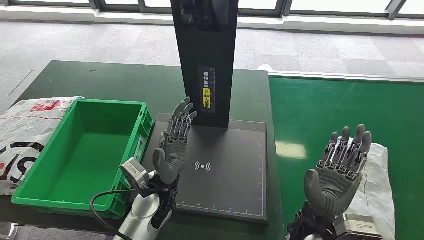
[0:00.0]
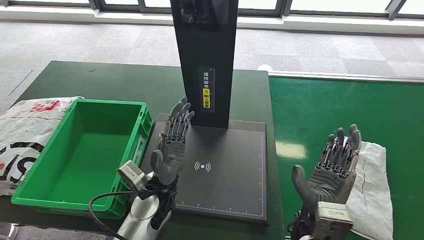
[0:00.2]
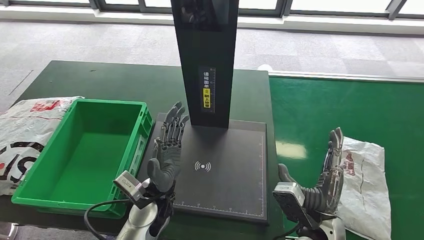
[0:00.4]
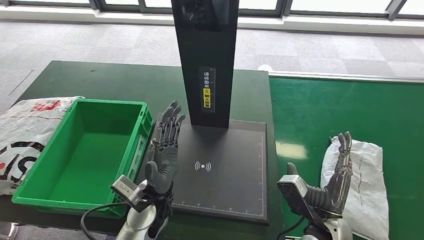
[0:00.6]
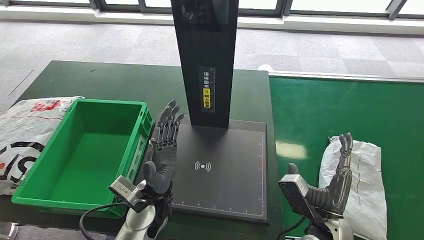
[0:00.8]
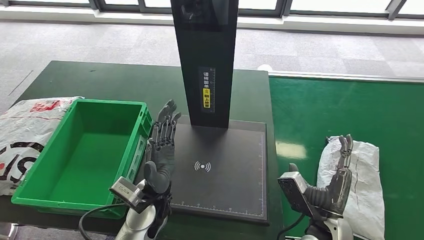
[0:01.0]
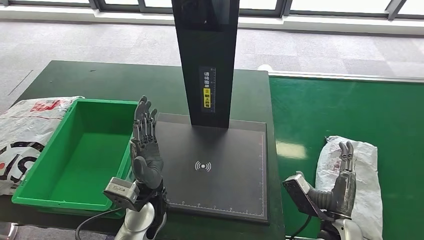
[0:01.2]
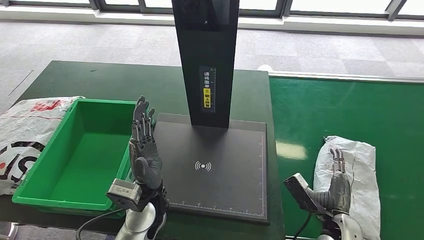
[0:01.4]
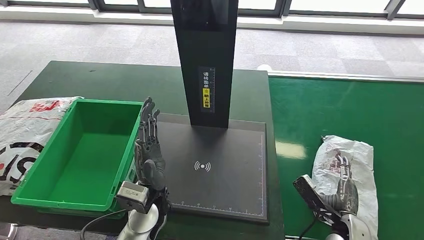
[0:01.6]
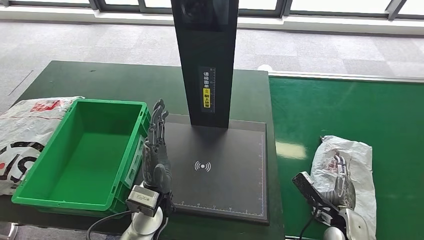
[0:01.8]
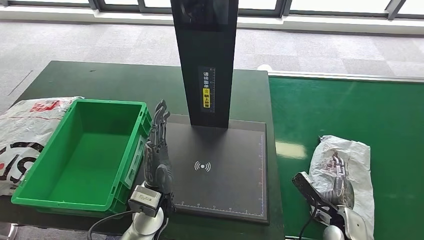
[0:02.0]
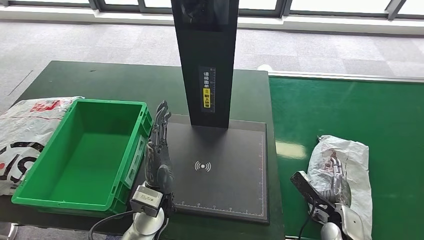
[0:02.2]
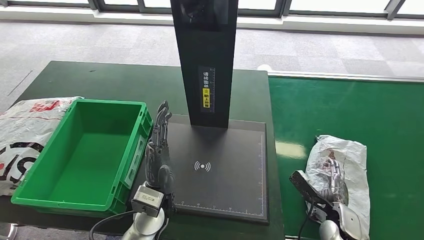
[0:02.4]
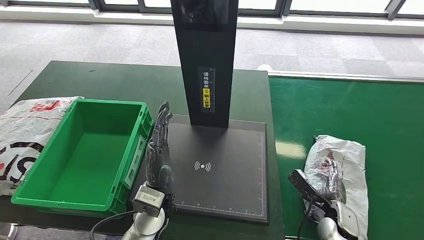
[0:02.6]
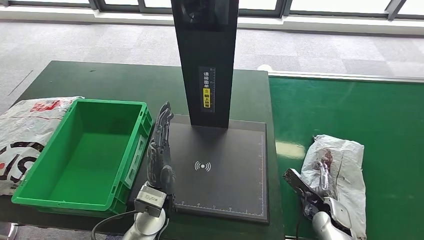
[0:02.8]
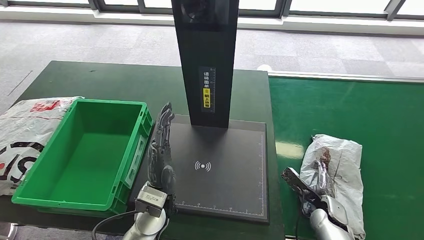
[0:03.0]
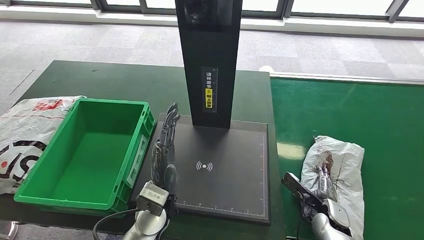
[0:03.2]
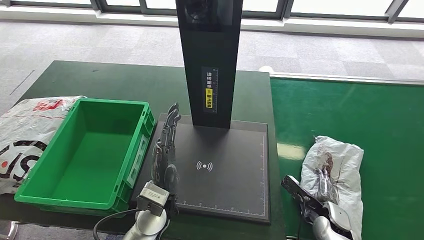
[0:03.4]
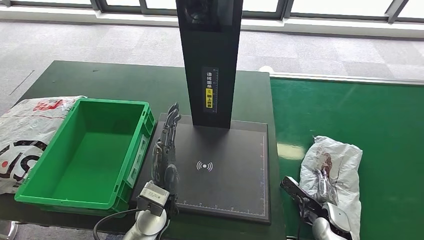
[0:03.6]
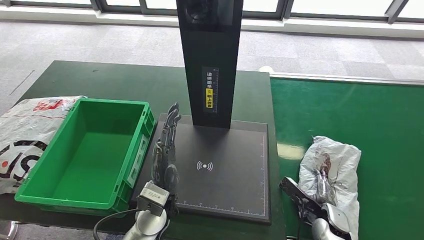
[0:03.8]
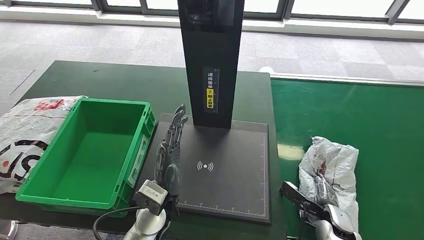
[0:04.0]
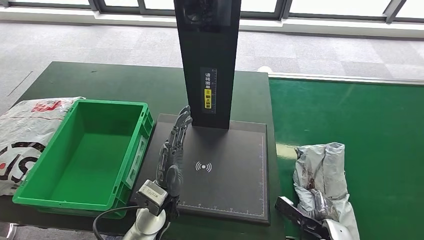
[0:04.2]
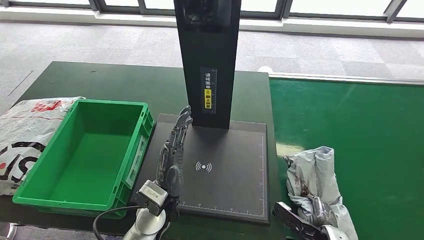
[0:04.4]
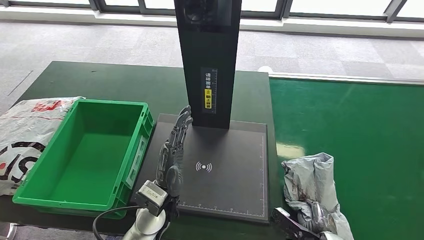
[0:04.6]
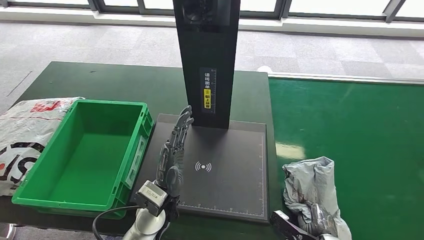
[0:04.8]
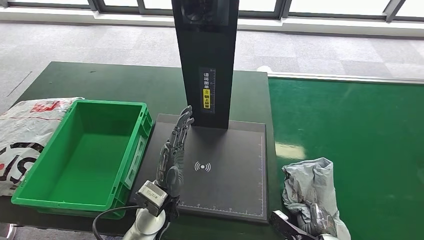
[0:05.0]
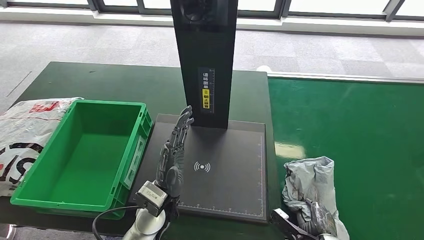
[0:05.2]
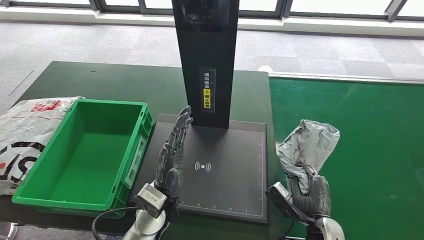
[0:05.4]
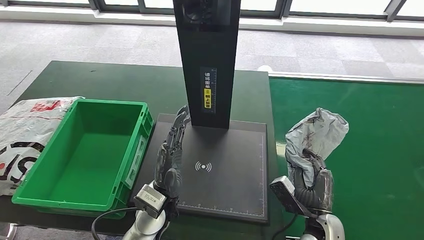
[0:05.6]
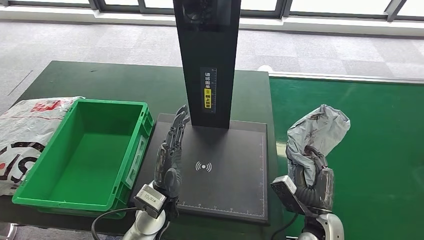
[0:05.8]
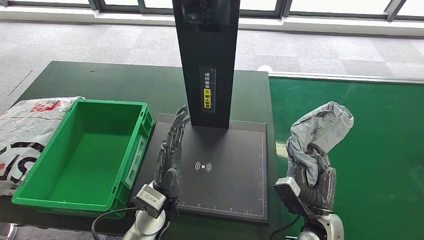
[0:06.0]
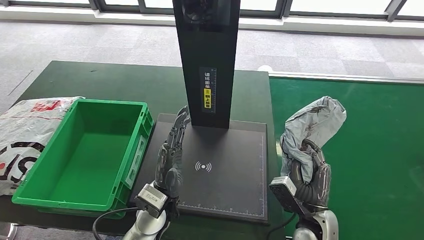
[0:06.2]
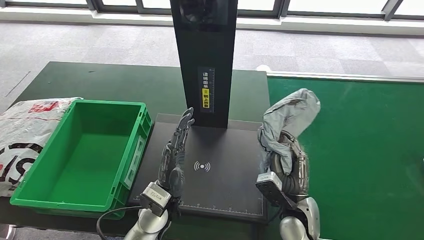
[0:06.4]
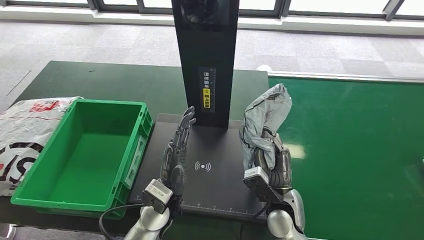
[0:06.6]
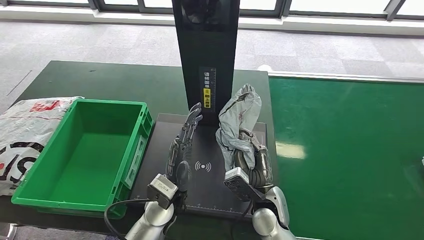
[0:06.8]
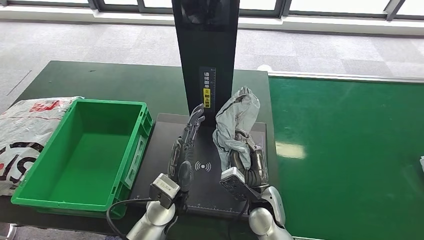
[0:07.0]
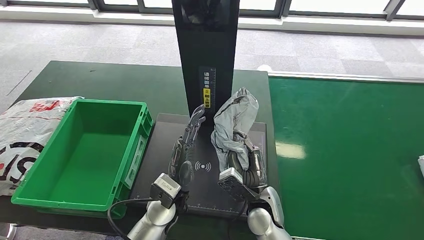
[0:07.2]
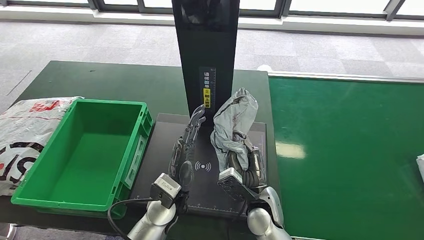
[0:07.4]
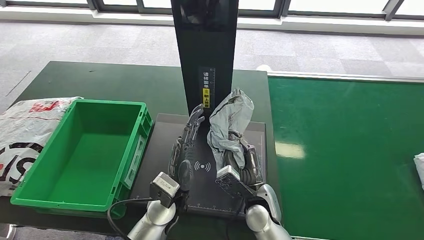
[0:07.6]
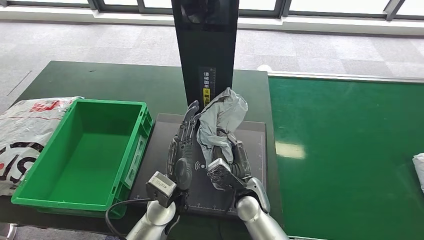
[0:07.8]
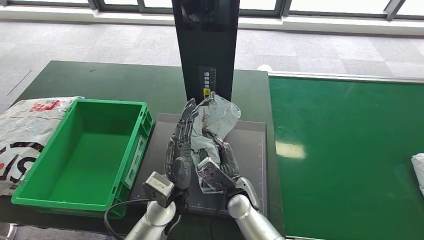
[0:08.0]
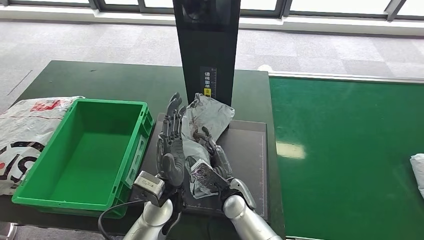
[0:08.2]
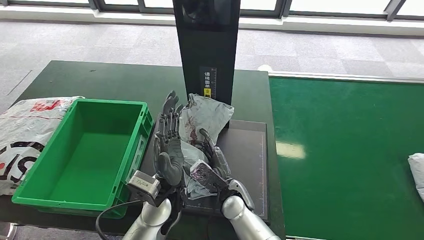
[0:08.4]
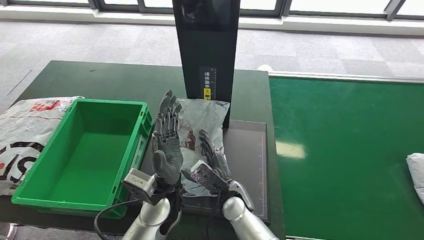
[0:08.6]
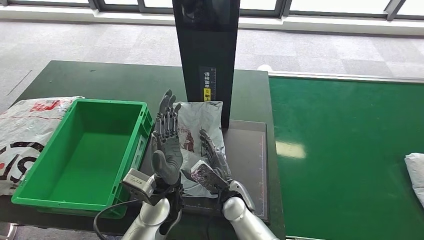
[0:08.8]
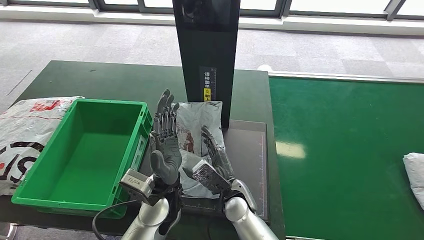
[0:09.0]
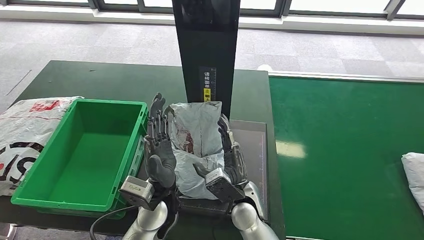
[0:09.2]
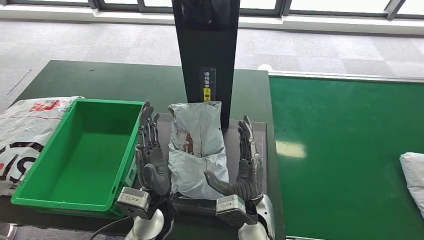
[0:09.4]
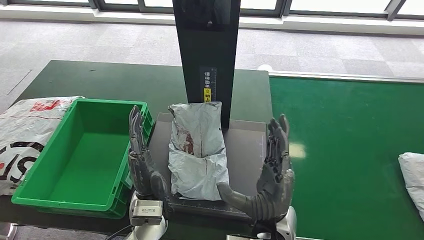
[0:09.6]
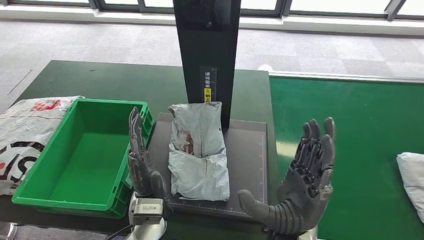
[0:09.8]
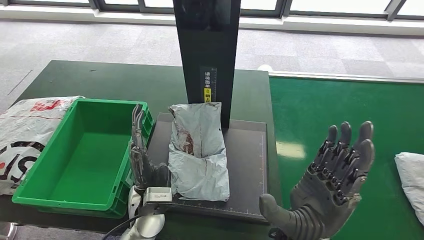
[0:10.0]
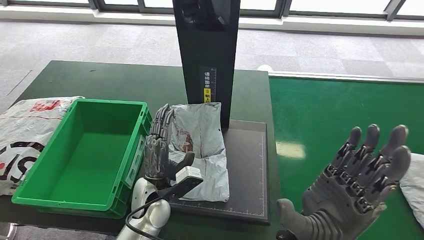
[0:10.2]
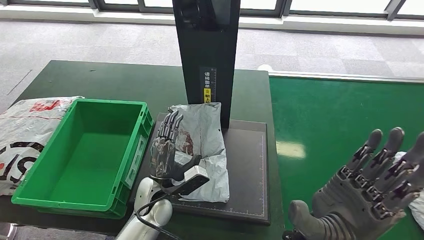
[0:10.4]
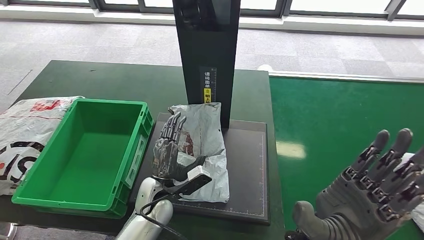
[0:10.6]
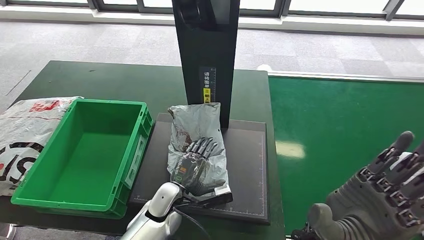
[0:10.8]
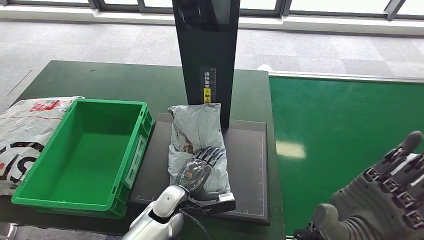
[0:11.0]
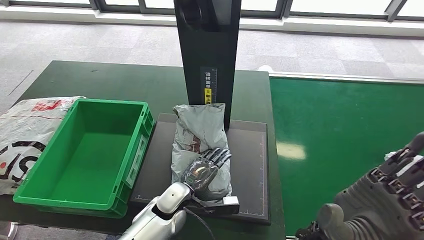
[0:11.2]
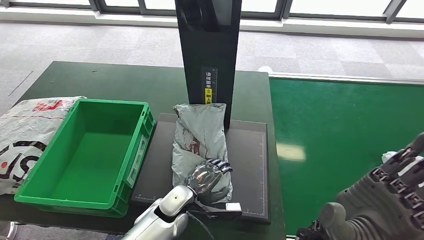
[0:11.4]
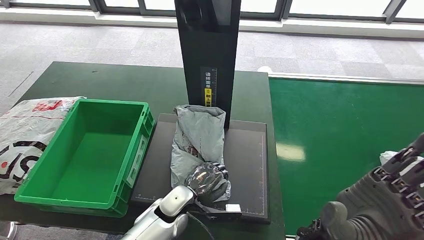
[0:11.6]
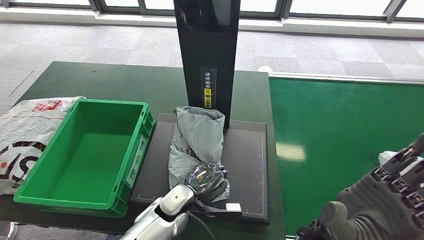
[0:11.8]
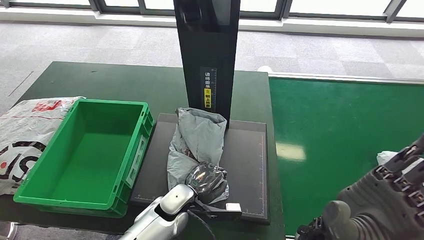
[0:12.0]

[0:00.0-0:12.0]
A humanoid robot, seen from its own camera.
Step, 0:00.0 to 0:05.8: Take the parcel off the conveyor belt.
Step, 0:06.2 to 0:10.2: Place the parcel onto the inbound machine.
0:01.6 to 0:03.0: The right hand heads downward and forward, covering some 10 cm.
0:03.0 to 0:04.4: The right hand heads backward, covering roughly 10 cm.
0:04.4 to 0:06.0: The right hand travels upward by about 5 cm.
0:06.0 to 0:07.6: The right hand goes roughly 15 cm to the left and forward.
0:07.6 to 0:09.0: The right hand goes roughly 5 cm to the left.
0:09.0 to 0:10.4: The left hand is displaced downward by roughly 10 cm; the right hand shifts approximately 25 cm upward, backward and to the right.

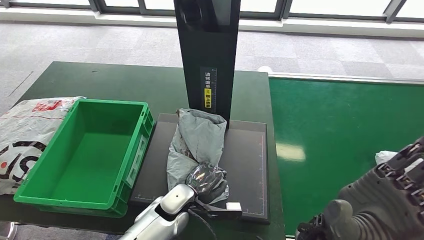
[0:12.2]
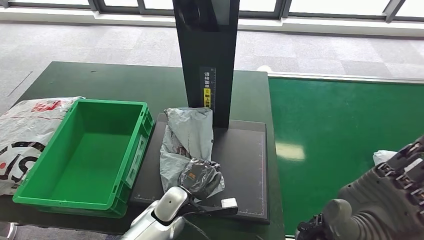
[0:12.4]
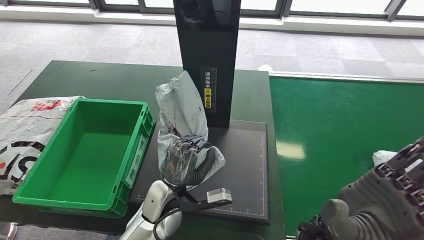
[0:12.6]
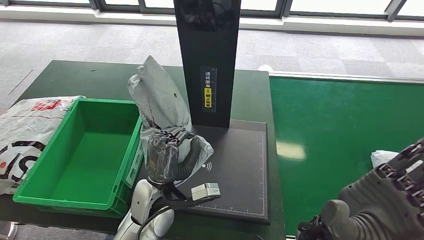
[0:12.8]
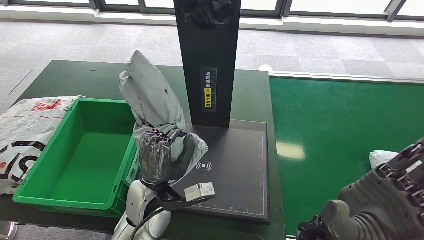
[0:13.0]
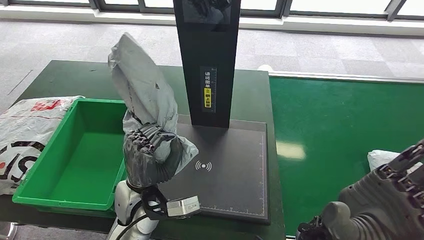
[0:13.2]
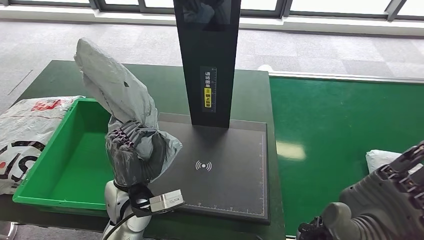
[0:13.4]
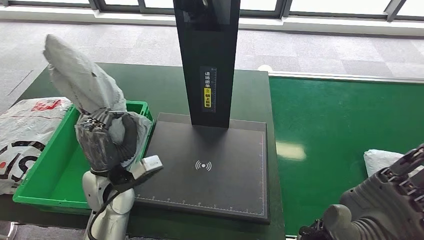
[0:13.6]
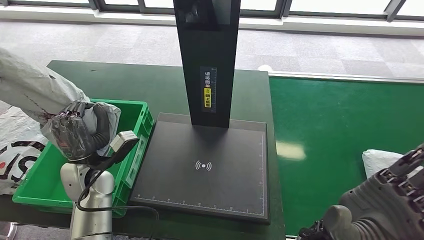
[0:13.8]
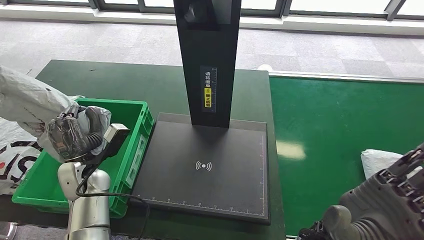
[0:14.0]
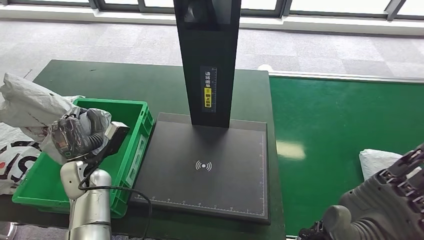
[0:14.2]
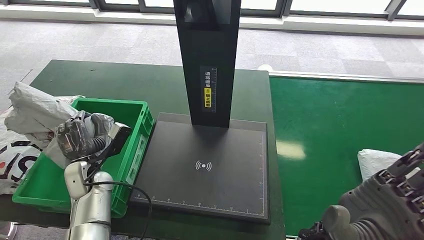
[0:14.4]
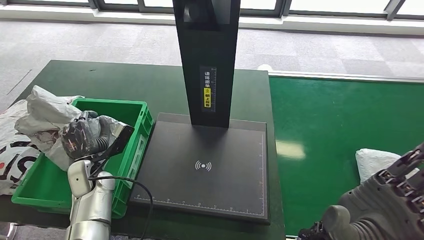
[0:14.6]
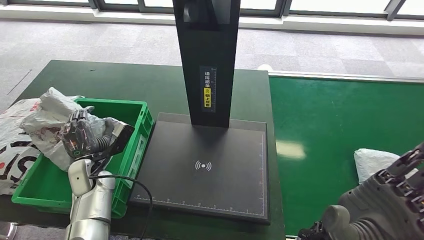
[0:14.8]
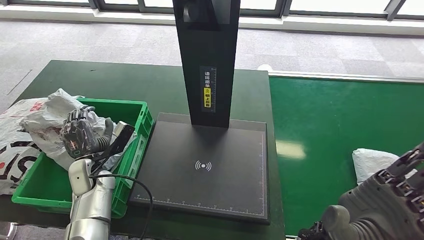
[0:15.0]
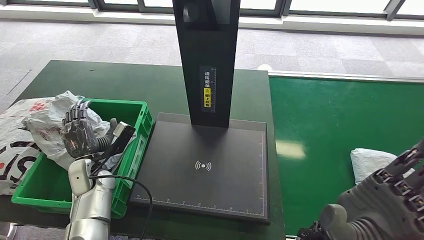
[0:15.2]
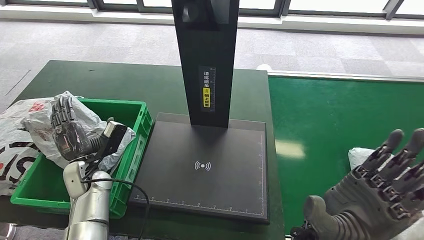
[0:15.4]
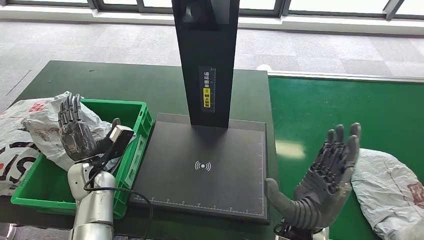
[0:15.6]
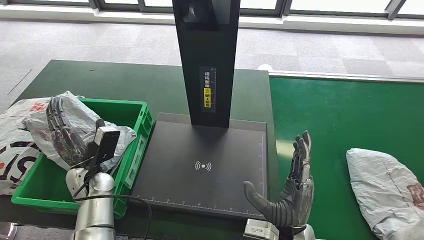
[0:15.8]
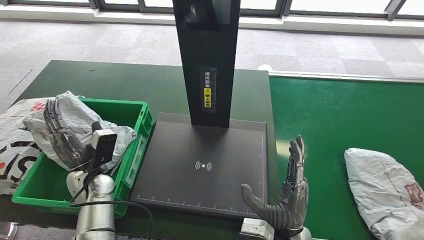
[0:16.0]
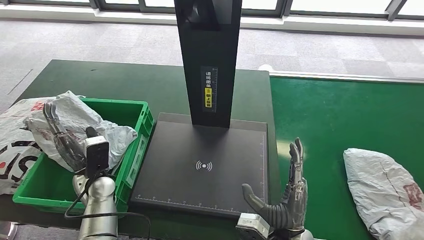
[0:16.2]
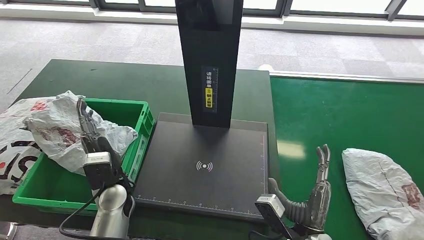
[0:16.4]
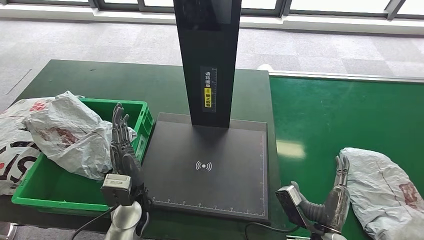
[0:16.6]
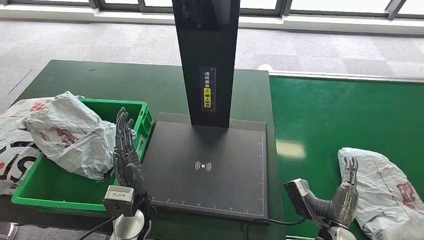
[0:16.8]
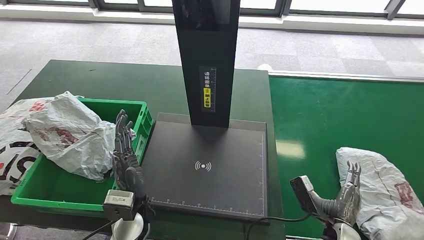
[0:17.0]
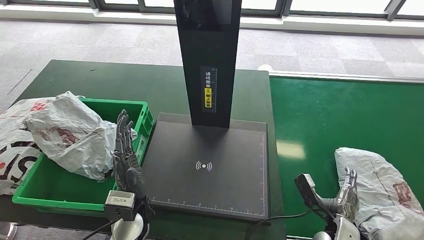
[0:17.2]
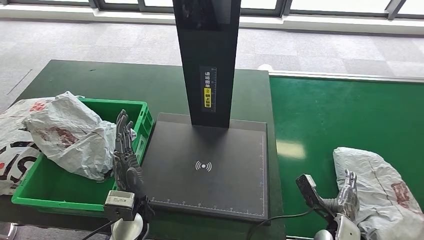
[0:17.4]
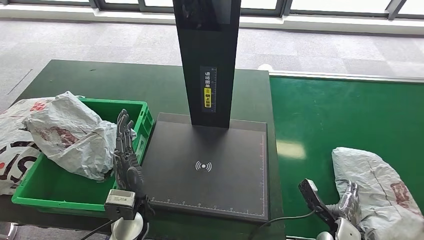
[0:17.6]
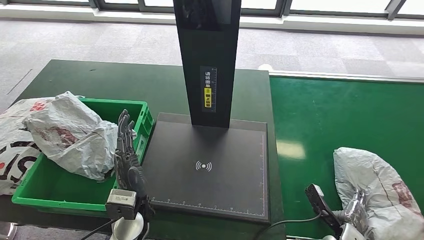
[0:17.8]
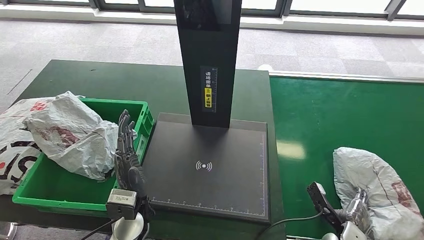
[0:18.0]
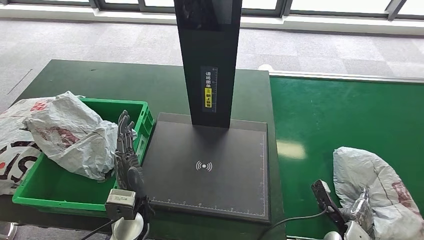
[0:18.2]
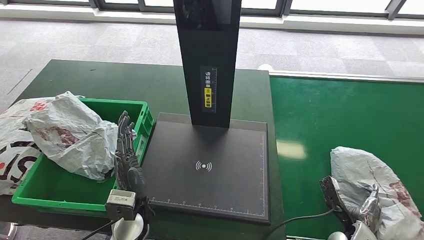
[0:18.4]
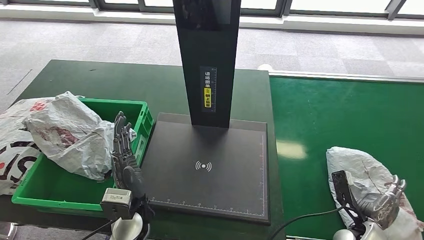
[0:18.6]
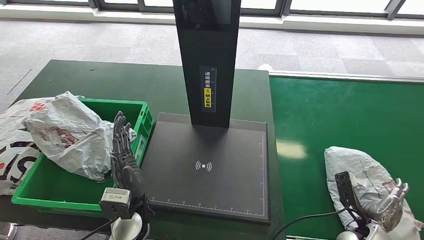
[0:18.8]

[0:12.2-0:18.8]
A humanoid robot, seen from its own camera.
Step, 0:14.0 to 0:17.0: Put the parcel inside the courier box.
0:17.2 to 0:18.8: The right hand moves to the right, roughly 5 cm.
